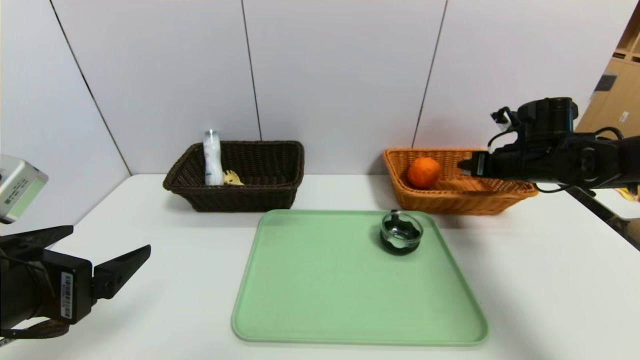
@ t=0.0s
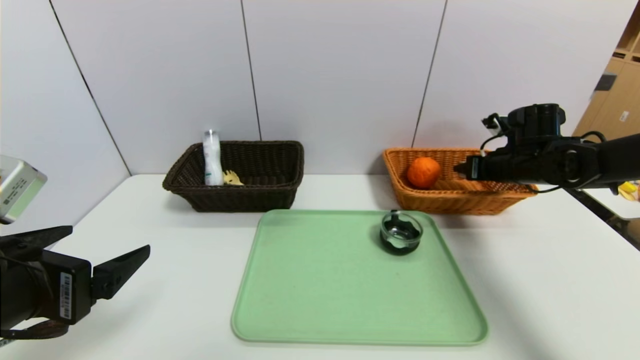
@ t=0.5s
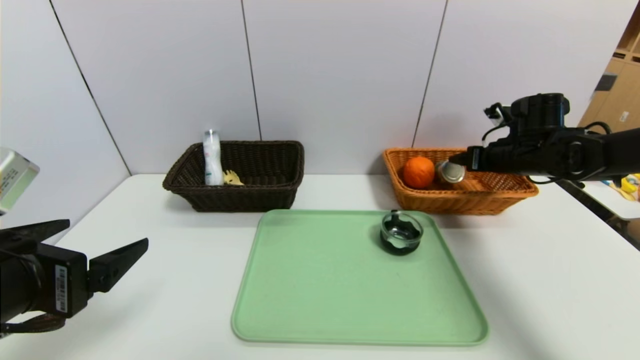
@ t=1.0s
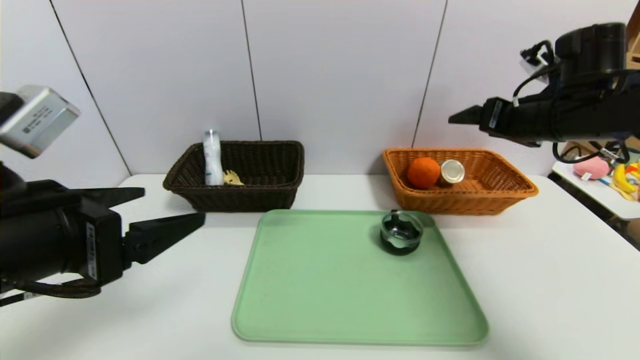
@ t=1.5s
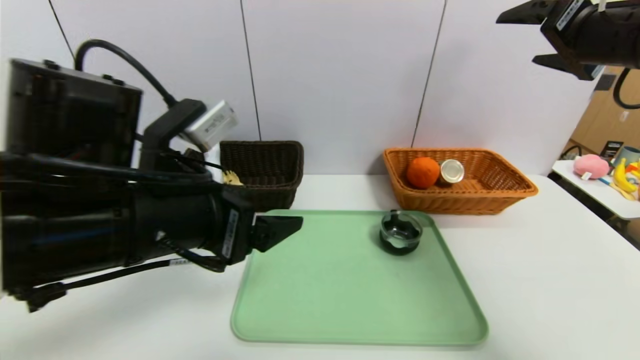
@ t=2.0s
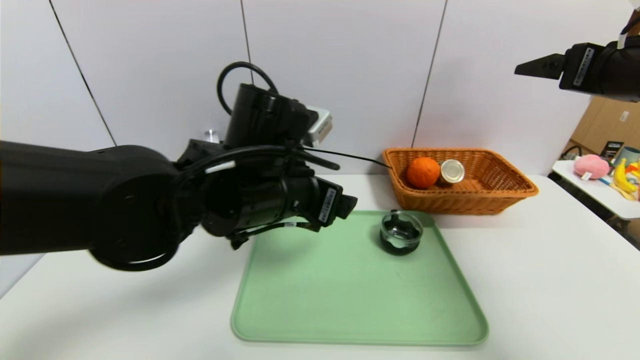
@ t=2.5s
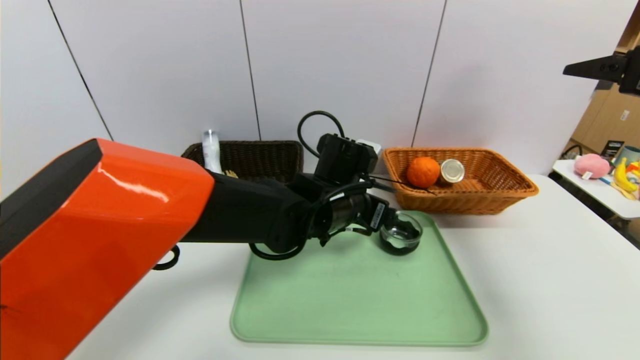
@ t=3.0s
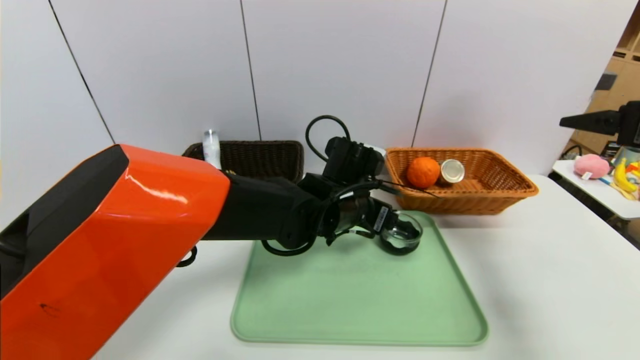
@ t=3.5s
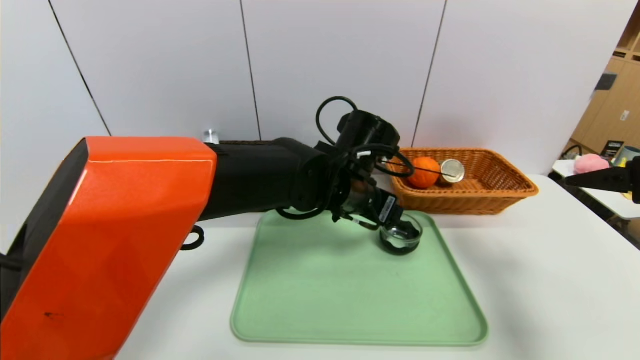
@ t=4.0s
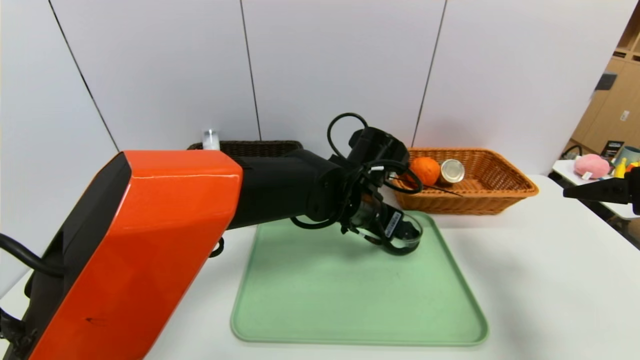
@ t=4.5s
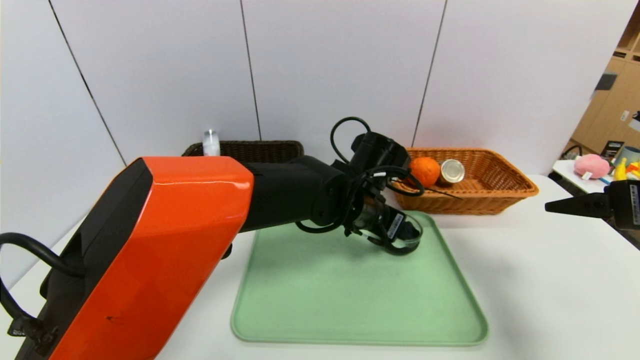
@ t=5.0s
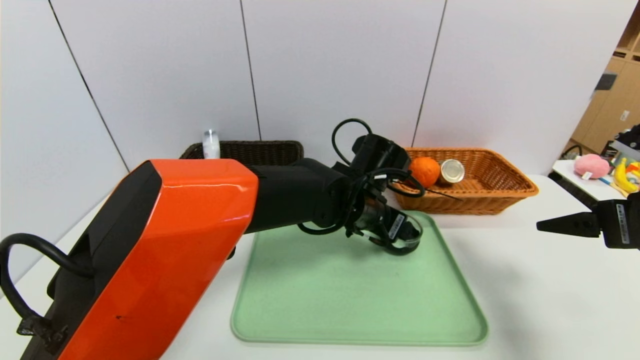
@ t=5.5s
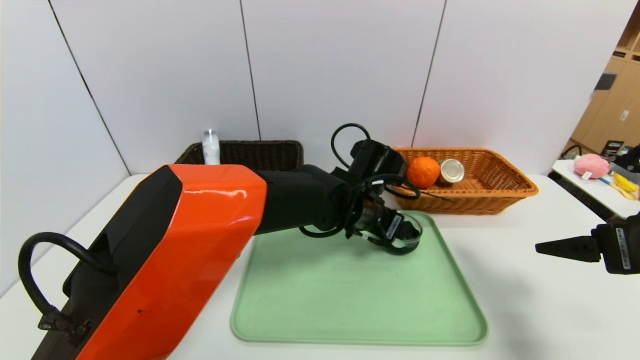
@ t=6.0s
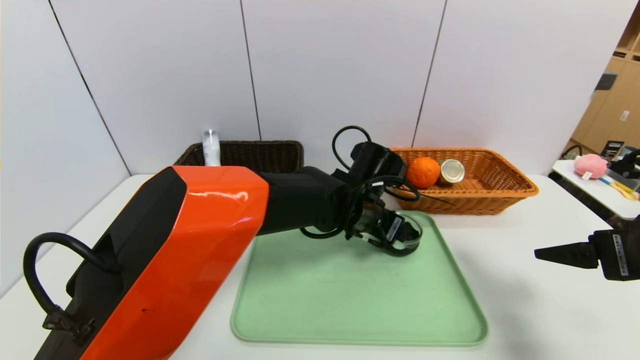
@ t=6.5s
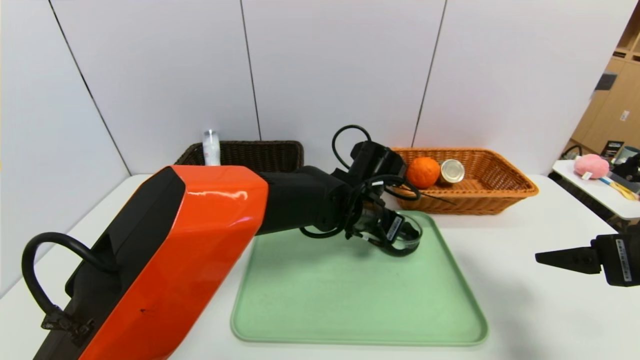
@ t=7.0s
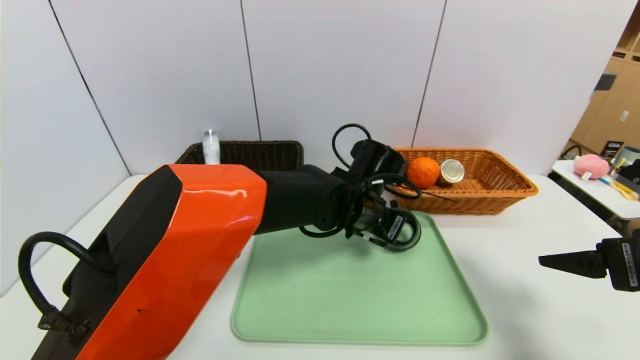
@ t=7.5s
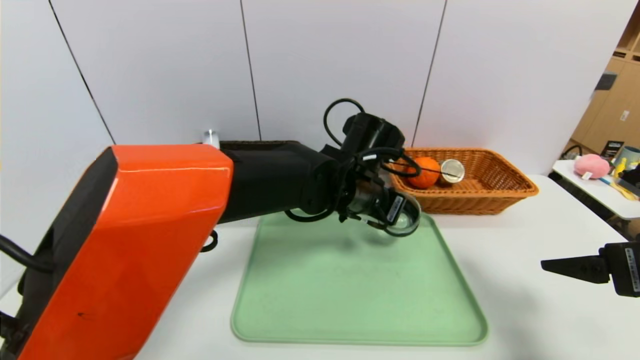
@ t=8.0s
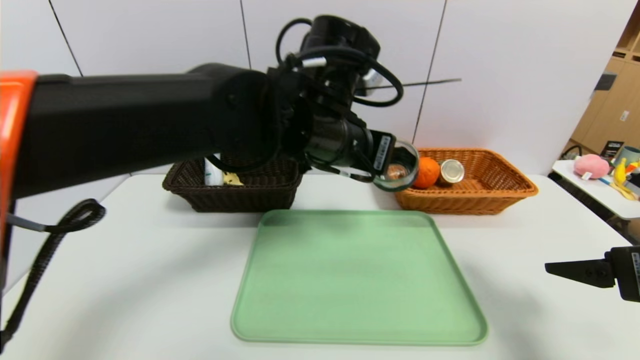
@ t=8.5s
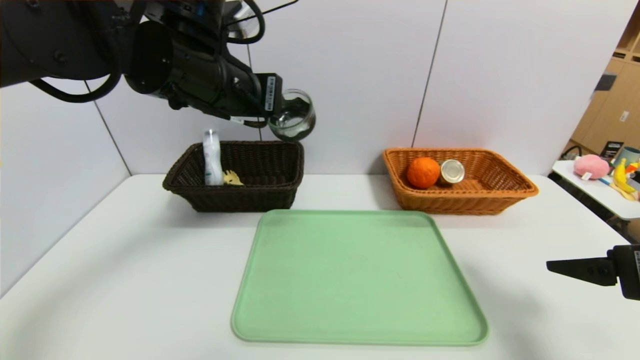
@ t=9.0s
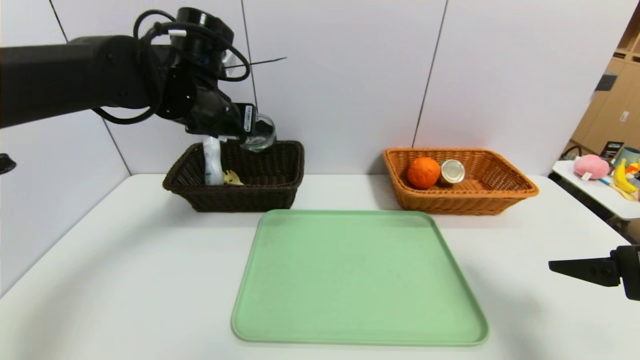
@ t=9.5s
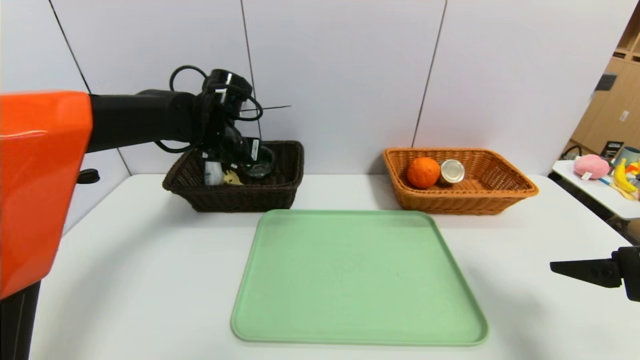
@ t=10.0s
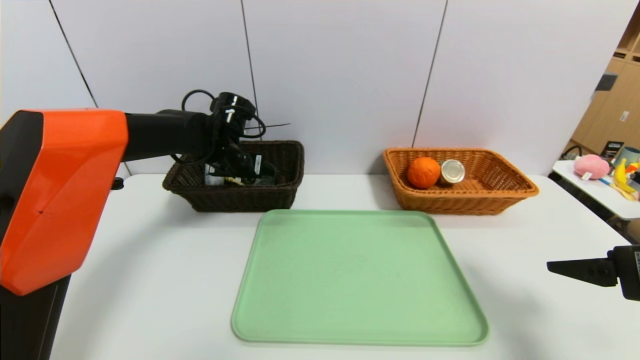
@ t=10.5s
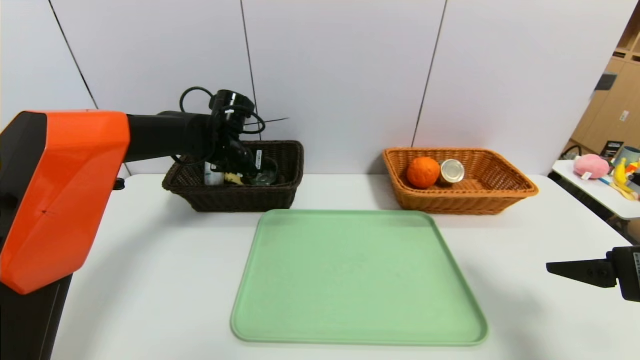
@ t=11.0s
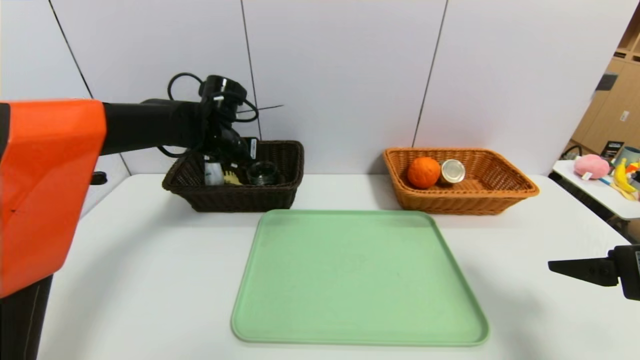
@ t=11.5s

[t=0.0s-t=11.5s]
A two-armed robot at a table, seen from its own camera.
Task of the whole recording: place the food in the right basket with the right gripper, and place the non food items in the left basket with the left gripper.
t=0.0s to t=2.0s: The right gripper is displaced upward and backward by approximately 20 cm, and opens. The left gripper travels to the right and forward by roughly 10 cm.
t=2.0s to t=4.0s: The right gripper goes about 15 cm backward, downward and to the right; the left gripper goes roughly 25 cm to the right and forward.
t=4.0s to t=6.0s: The right gripper travels downward by about 5 cm.
t=6.0s to t=7.5s: The left gripper closes.
t=7.5s to t=9.5s: The left gripper heads to the left and upward, covering approximately 25 cm.
t=9.5s to t=11.5s: The left gripper shifts some 10 cm forward and downward, and opens.

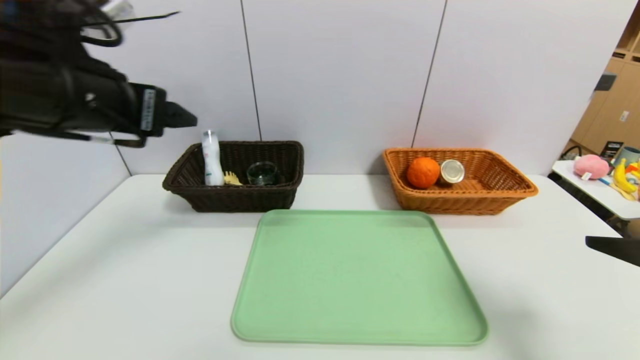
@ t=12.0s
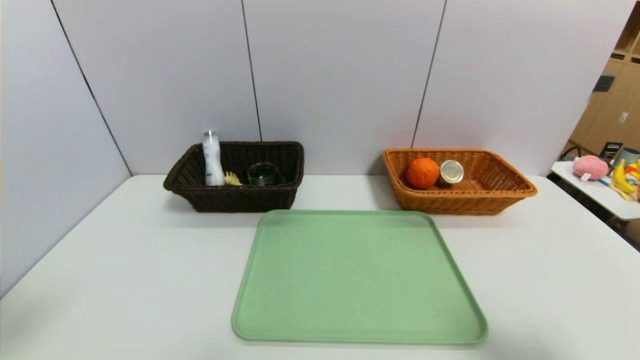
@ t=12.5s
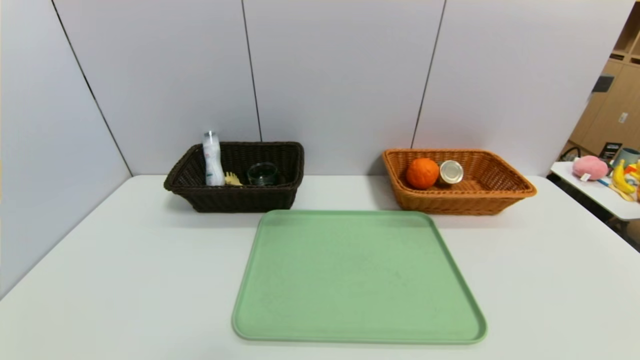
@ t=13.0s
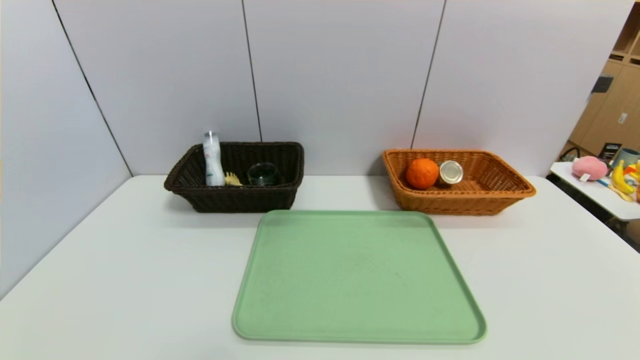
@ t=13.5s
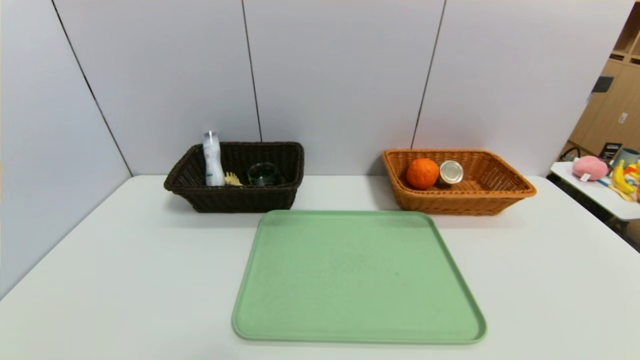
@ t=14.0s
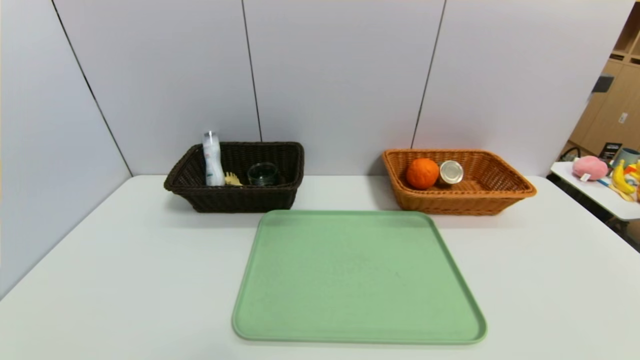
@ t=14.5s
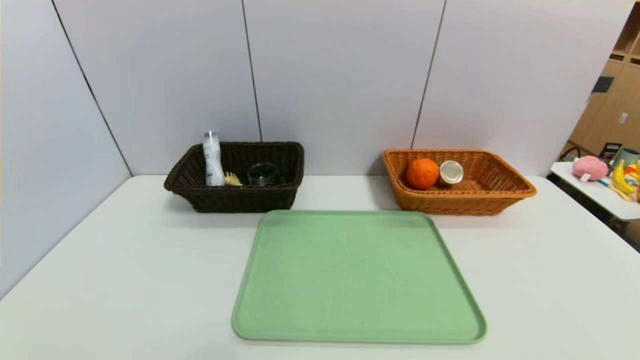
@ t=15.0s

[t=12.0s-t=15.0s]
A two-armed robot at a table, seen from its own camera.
Task of the whole recording: place the food in the right basket with the right gripper, and place the non food items in the left basket with the left gripper.
t=12.0s to t=13.5s: The right gripper moves backward and downward, roughly 20 cm. Meanwhile the left gripper moves backward and downward, some 35 cm.

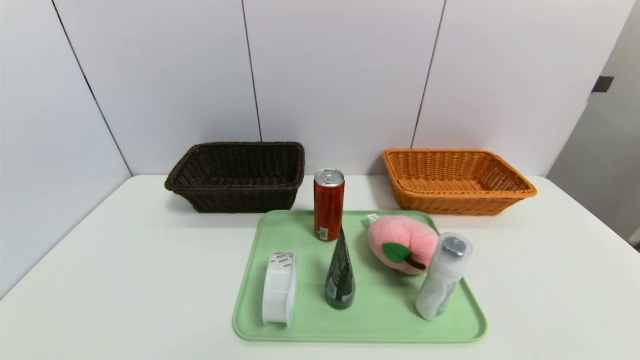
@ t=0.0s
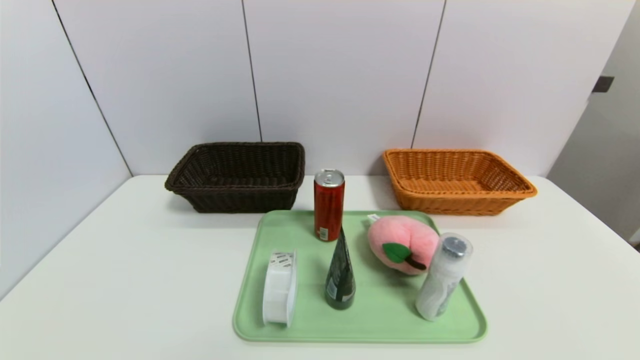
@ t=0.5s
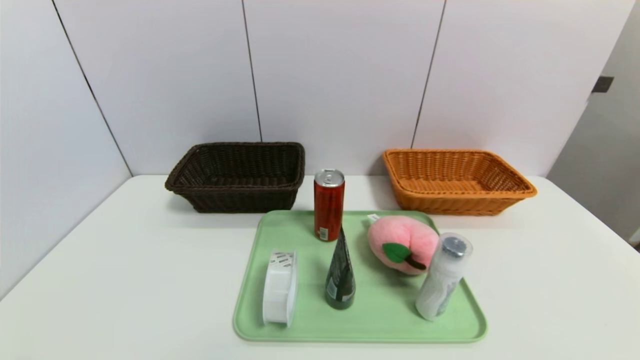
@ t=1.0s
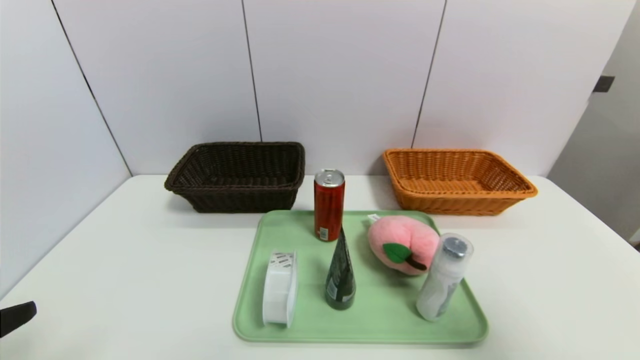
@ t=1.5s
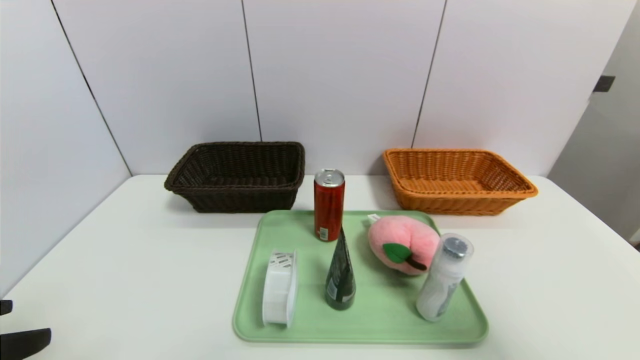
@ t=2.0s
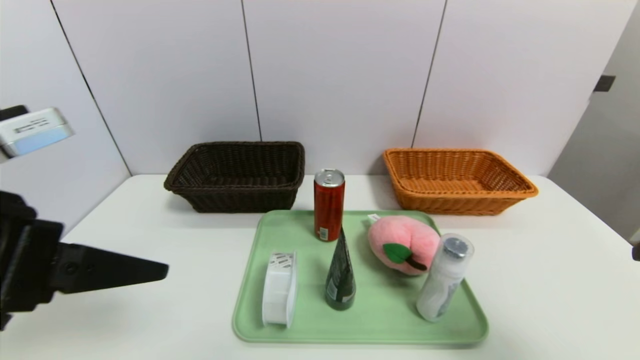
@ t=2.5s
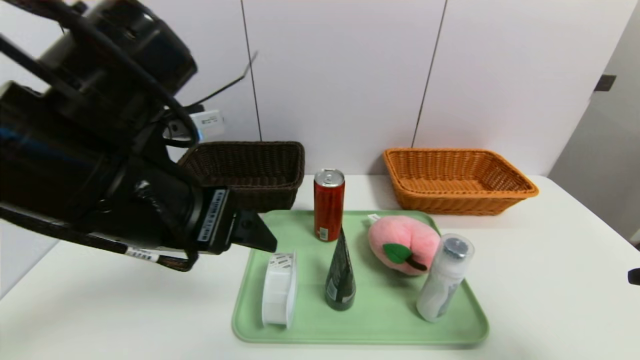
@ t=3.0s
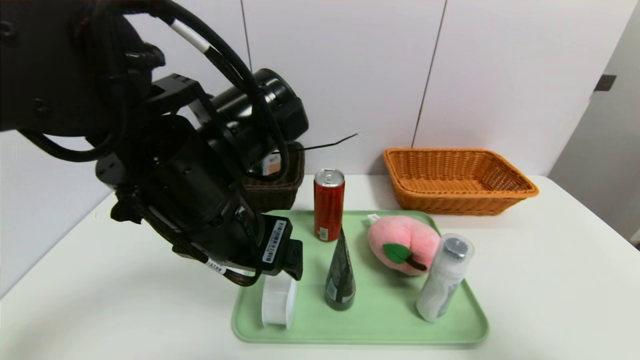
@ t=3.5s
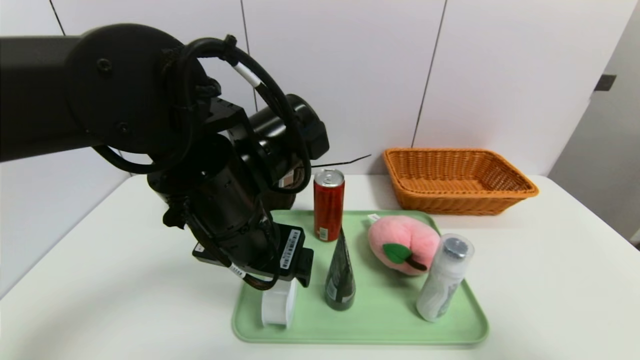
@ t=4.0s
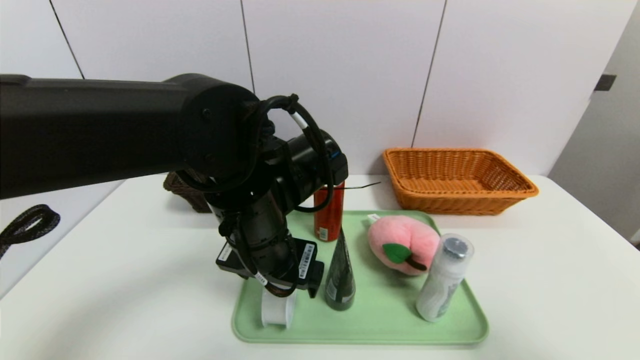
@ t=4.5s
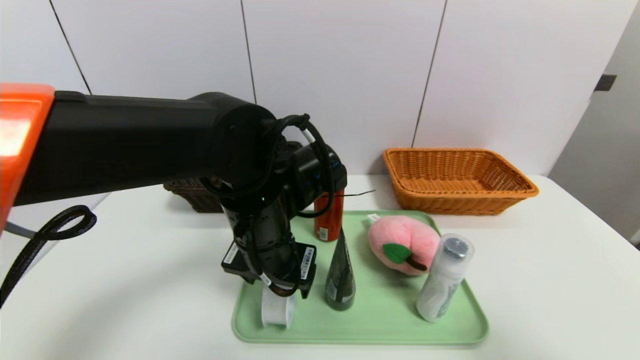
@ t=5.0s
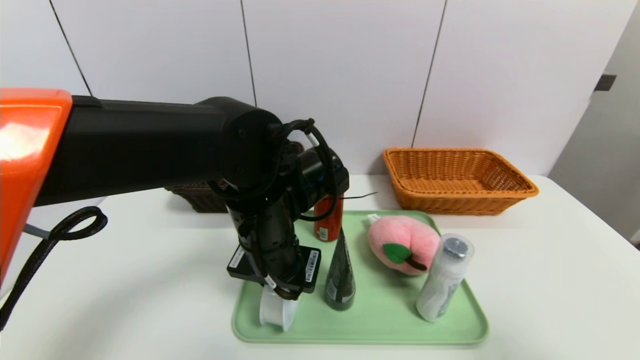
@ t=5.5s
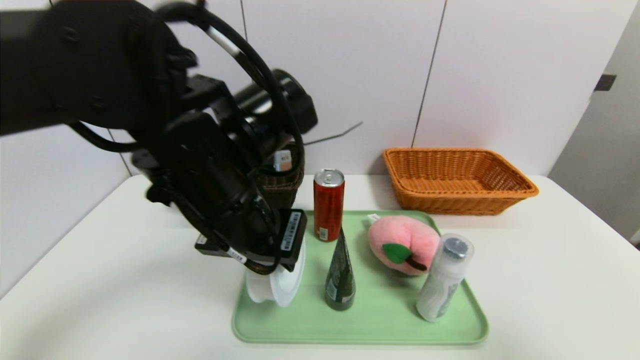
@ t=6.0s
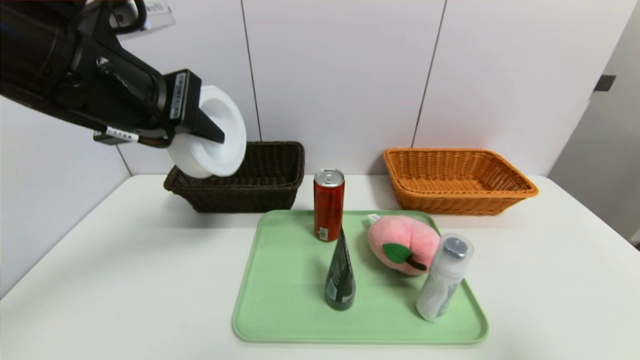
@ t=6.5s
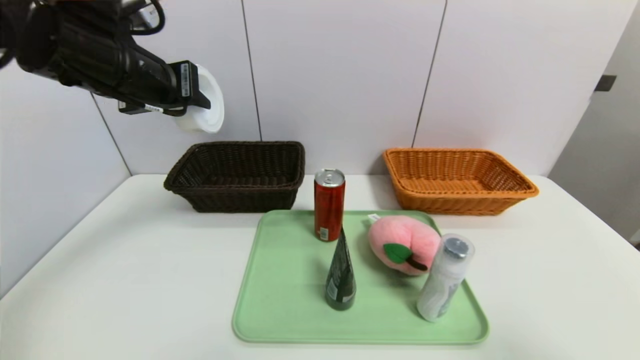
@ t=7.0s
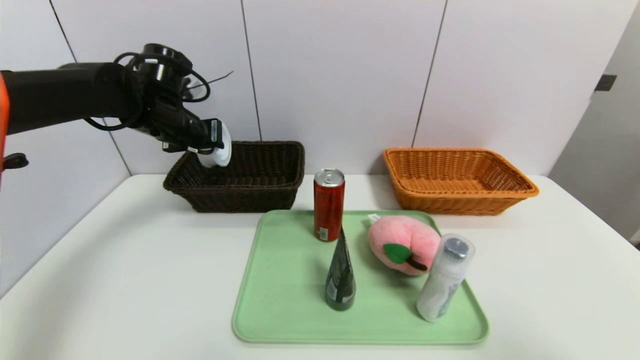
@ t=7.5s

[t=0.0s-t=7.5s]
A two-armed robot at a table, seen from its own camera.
Task of the whole recording: place the food in the right basket with the right gripper, and place the non food items in the left basket with the left gripper.
t=0.0s to t=2.0s: Both grippers move upward, approximately 25 cm.
t=2.0s to t=4.0s: The right gripper shifts approximately 5 cm downward. The left gripper shifts about 25 cm to the right and forward.
t=4.0s to t=5.5s: The left gripper goes roughly 5 cm downward, and closes up.
t=5.5s to t=7.5s: The left gripper shifts some 25 cm to the left and forward.
